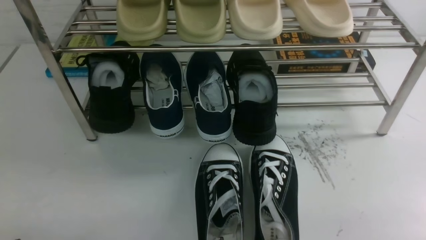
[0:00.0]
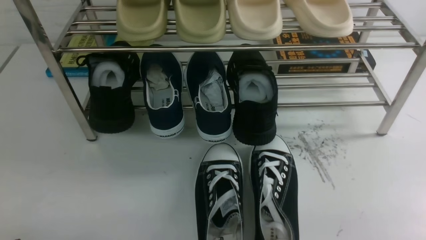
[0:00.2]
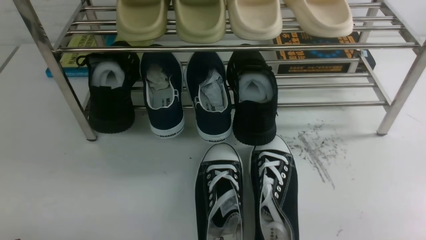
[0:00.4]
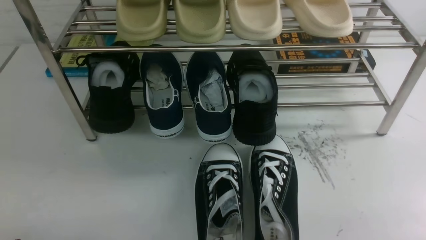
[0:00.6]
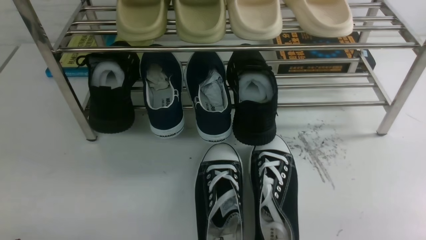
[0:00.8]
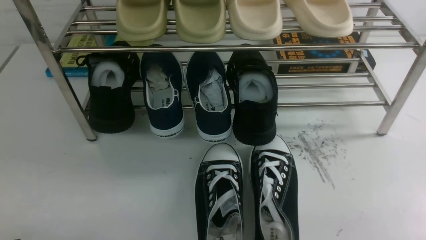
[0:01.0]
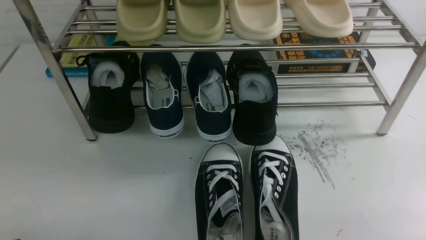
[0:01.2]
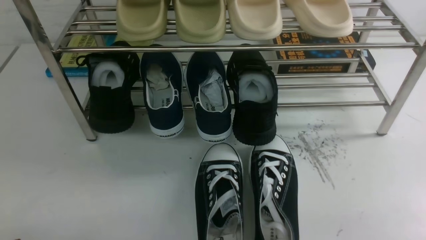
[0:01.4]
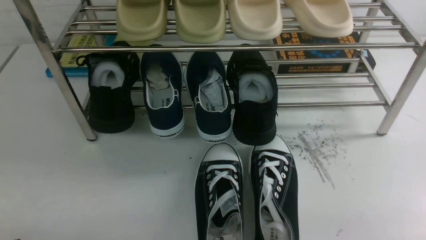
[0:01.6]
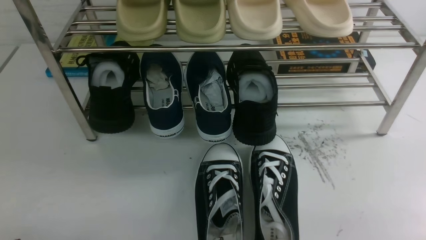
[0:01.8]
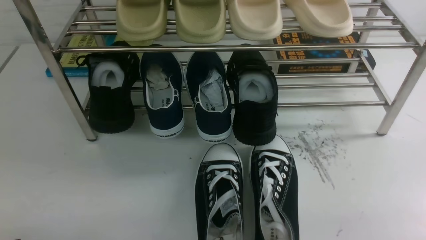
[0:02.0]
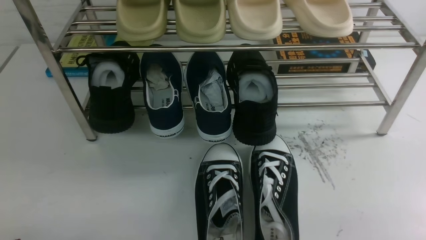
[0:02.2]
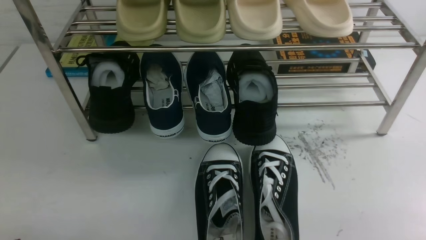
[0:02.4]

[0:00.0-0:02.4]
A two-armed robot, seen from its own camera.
0:00.0 to 0:02.4: Both grippers stay about where they are.
